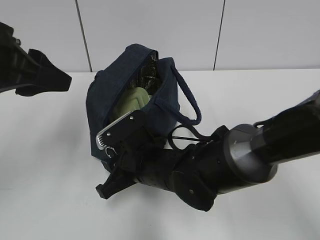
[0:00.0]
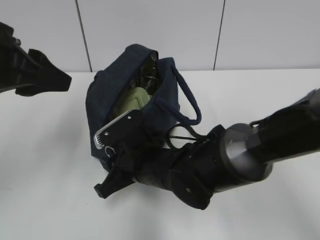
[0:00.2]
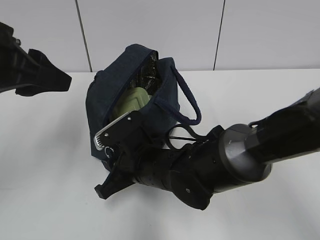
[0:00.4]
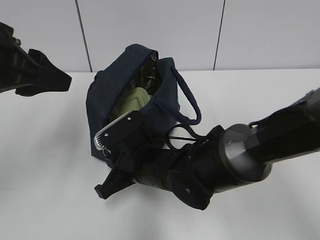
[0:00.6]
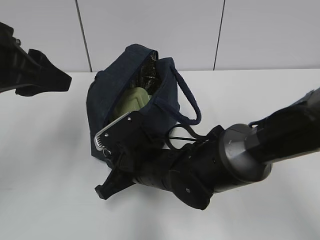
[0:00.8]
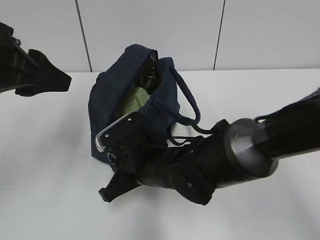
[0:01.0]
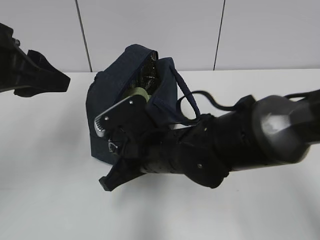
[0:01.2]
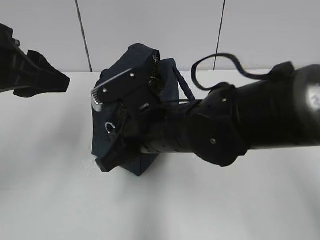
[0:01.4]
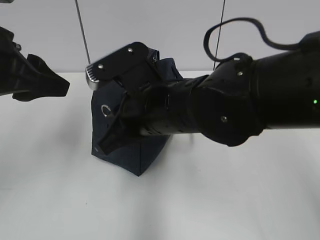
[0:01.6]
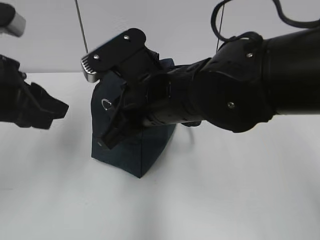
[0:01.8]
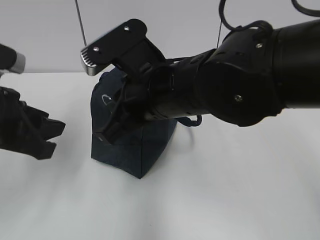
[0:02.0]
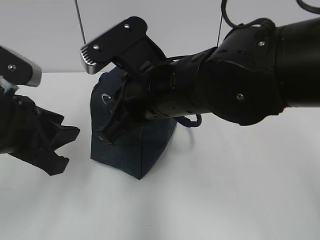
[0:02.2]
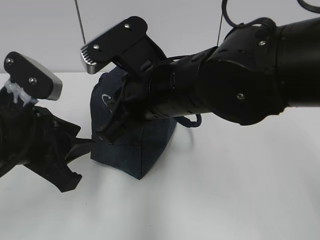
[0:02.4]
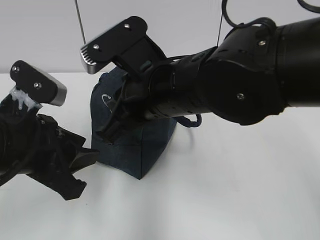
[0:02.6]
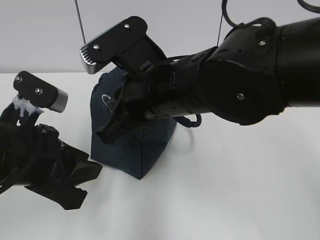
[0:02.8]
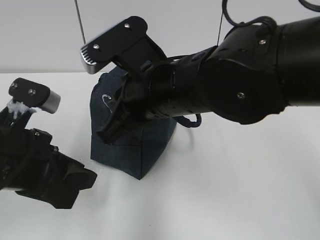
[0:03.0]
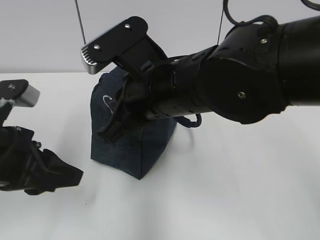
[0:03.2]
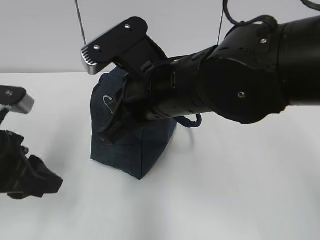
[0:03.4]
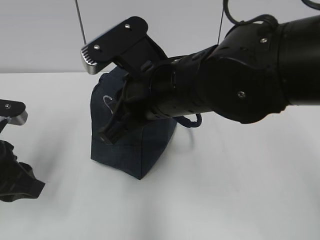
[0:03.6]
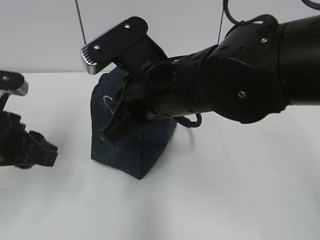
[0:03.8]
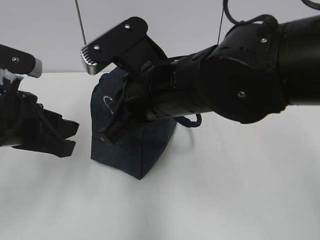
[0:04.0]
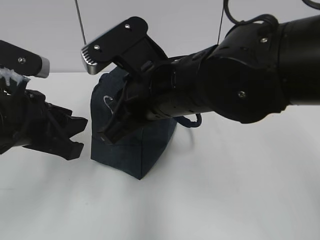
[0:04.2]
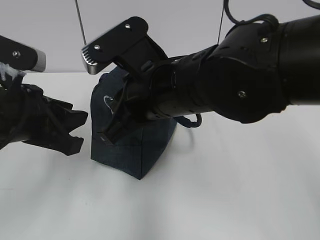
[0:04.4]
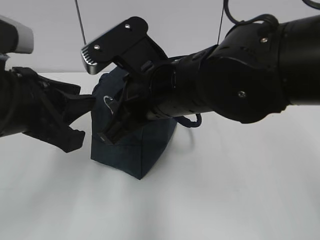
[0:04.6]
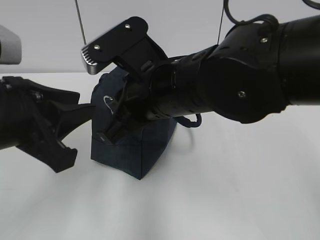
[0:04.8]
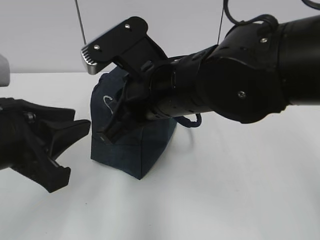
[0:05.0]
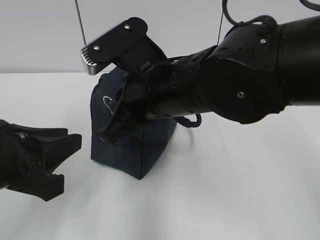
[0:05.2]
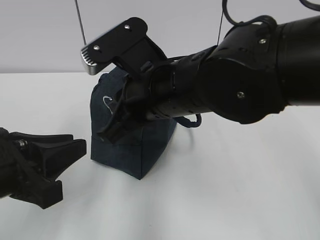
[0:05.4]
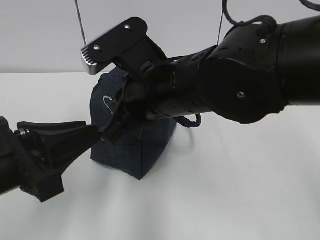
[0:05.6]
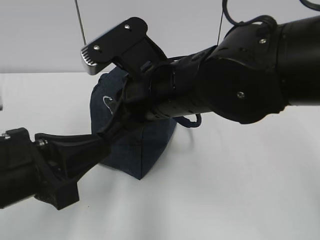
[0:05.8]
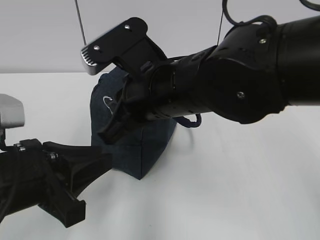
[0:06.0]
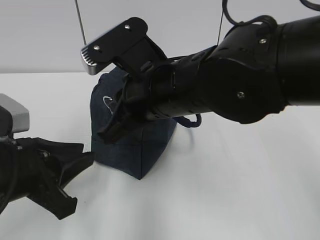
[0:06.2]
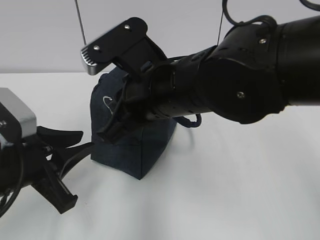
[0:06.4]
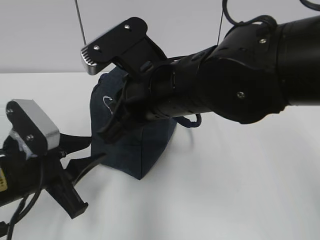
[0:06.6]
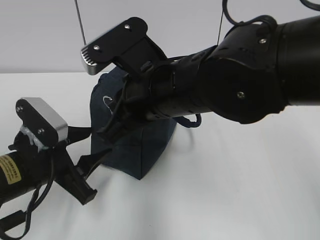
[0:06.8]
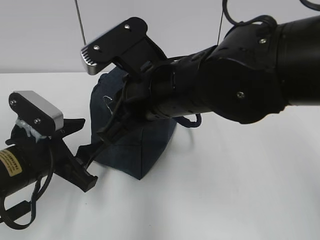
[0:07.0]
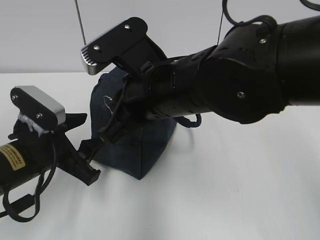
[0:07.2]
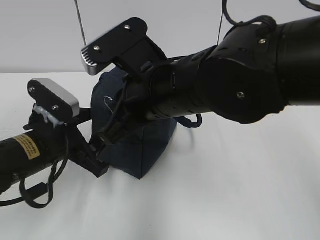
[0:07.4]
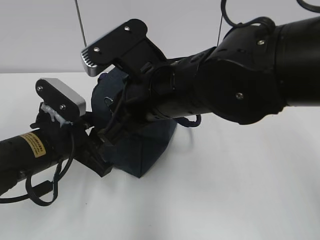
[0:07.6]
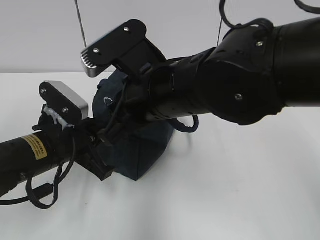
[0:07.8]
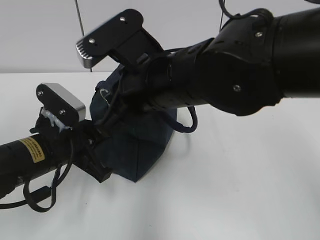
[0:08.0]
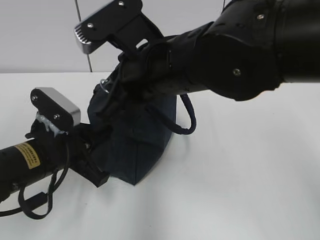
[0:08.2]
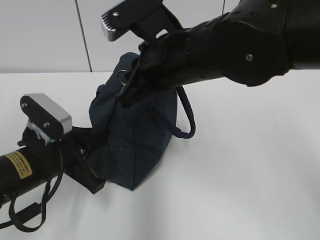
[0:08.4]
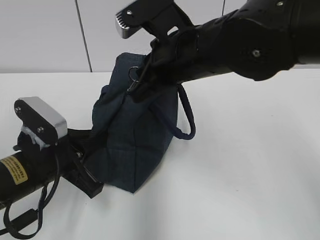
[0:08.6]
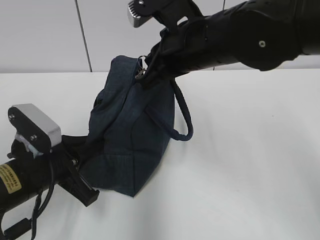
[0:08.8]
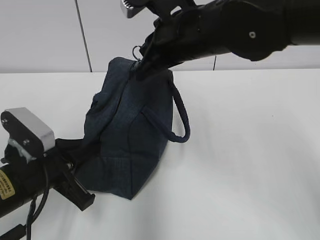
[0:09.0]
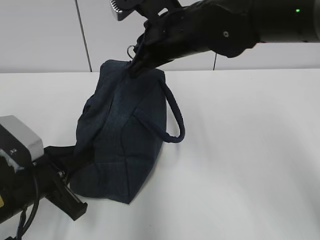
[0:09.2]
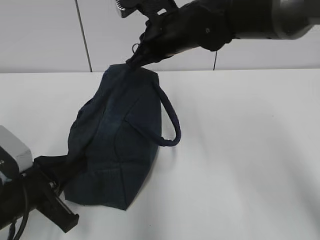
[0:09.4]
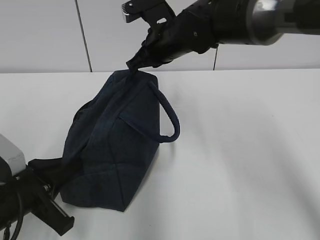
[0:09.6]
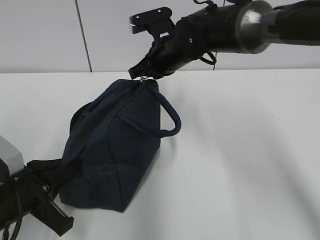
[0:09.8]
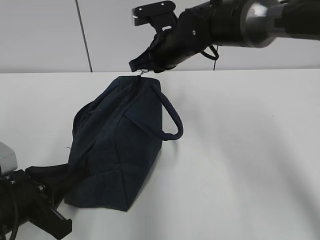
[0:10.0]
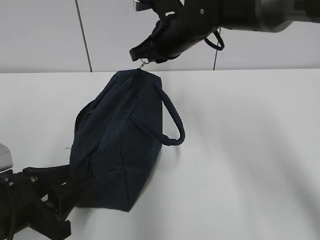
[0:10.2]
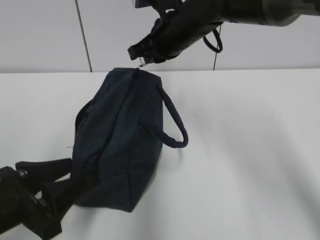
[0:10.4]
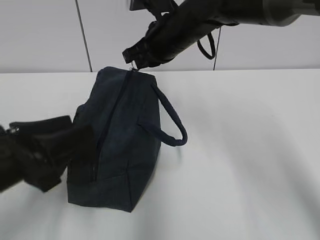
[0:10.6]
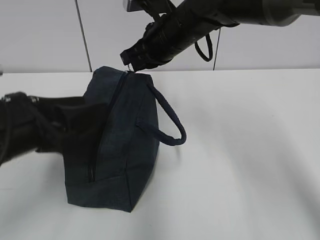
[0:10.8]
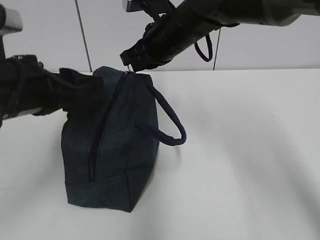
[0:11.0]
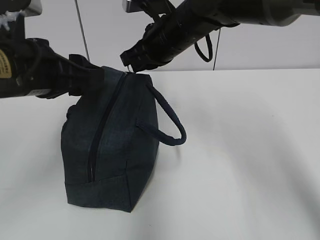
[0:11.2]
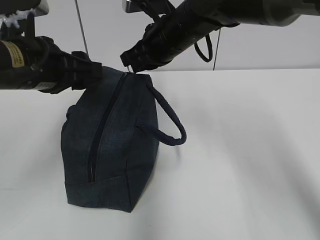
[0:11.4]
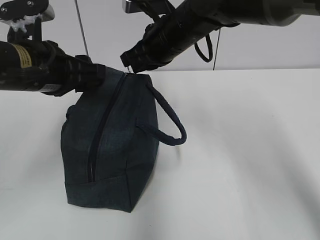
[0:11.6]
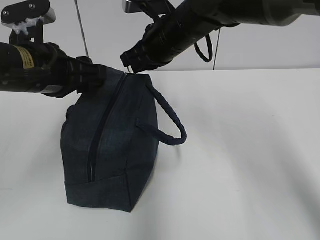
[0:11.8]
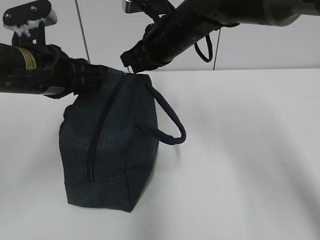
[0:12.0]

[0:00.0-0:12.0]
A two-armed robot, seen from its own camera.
0:00.0 to 0:01.6: The right gripper is displaced upward by approximately 15 cm, and closes.
0:01.6 to 0:03.0: The left gripper goes roughly 10 cm downward.
0:04.4 to 0:06.0: The left gripper travels backward and downward by about 10 cm.
0:06.0 to 0:07.6: The left gripper travels forward by some 10 cm, and opens, then closes again.
0:07.6 to 0:09.0: The left gripper heads backward, covering some 5 cm; the right gripper is displaced forward by about 10 cm.
0:09.0 to 0:10.4: The right gripper goes approximately 10 cm forward. Meanwhile the left gripper travels backward by some 5 cm, and opens up.
0:10.4 to 0:12.0: The left gripper travels forward and upward by about 20 cm, and closes its fingers.

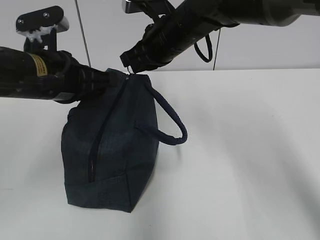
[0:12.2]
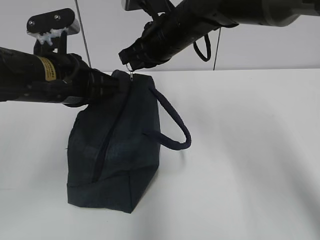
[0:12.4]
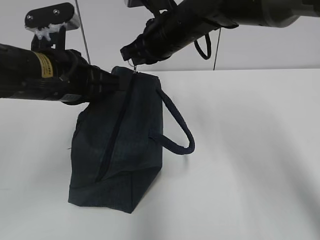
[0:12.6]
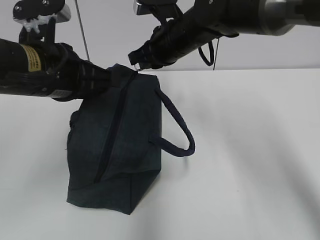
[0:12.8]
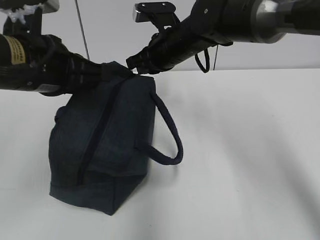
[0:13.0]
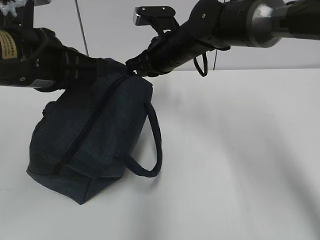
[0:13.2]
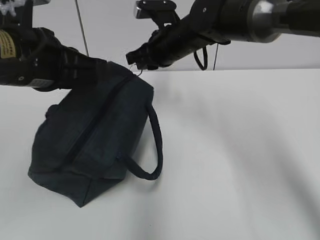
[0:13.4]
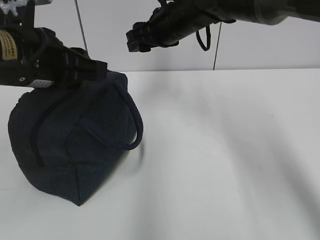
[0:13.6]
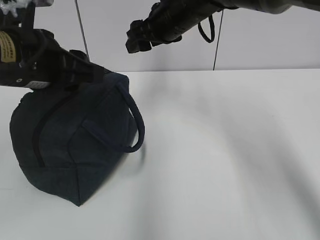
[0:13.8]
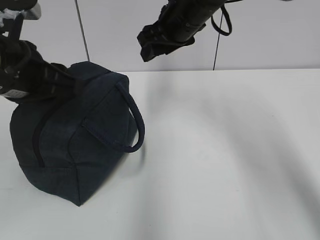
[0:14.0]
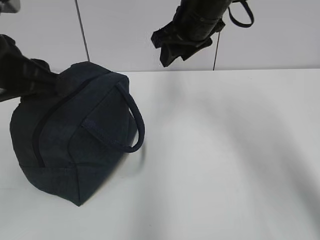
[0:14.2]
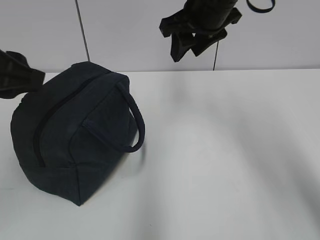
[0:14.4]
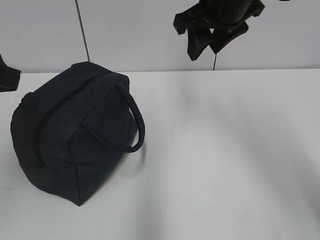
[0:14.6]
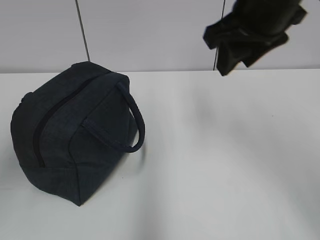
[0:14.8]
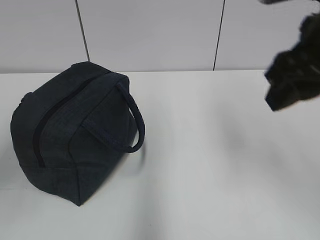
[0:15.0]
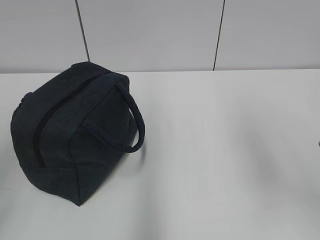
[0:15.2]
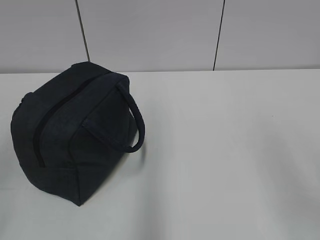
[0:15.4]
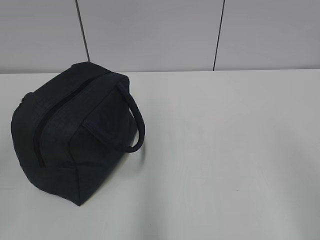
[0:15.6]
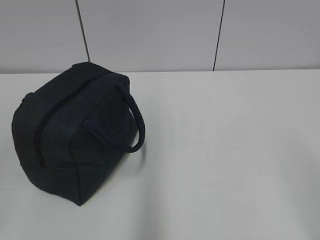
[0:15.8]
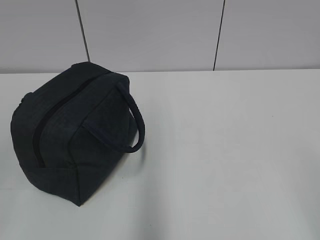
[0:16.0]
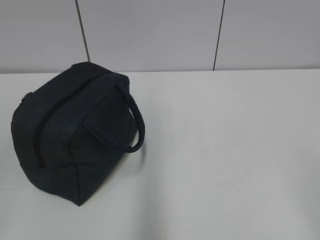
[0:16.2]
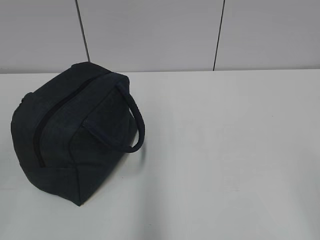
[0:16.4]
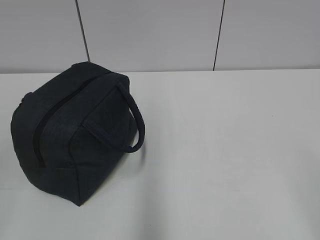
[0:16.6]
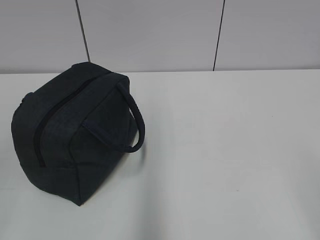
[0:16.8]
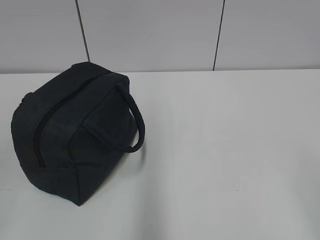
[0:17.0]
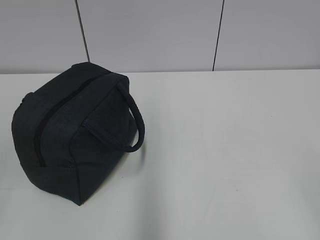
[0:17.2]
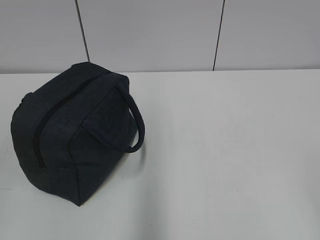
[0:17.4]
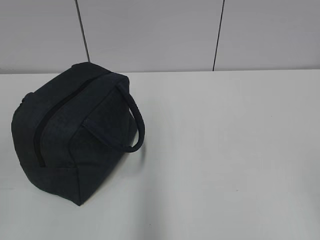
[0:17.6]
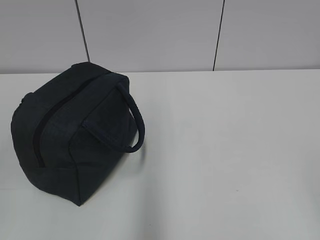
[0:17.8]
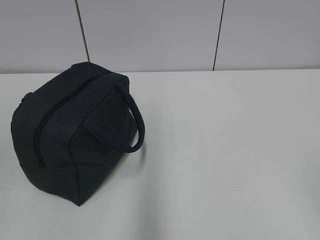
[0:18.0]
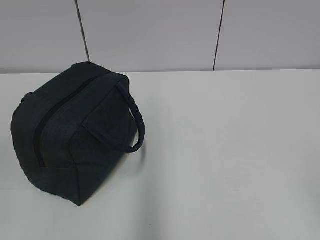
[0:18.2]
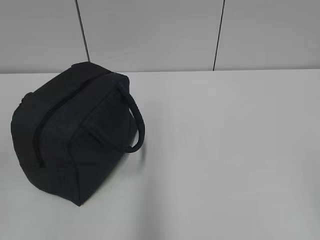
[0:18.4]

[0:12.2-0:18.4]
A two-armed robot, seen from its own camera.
0:12.2 to 0:13.8: The right gripper opens. Meanwhile the left gripper changes place by some 5 cm, and opens up.
0:13.8 to 0:15.4: The left gripper shifts approximately 25 cm backward and to the left. Meanwhile the right gripper travels backward and to the right by some 40 cm.
0:15.4 to 0:16.8: The right gripper goes some 10 cm backward.
